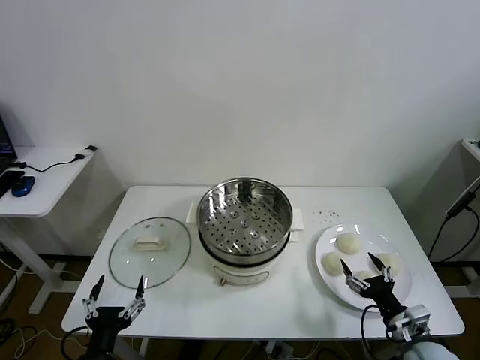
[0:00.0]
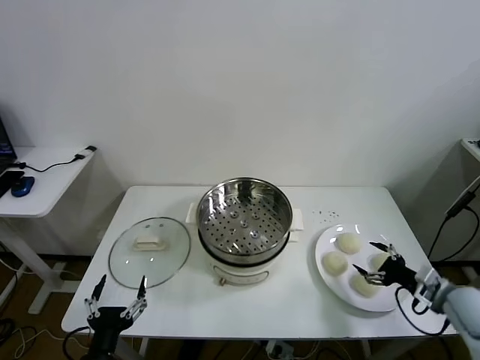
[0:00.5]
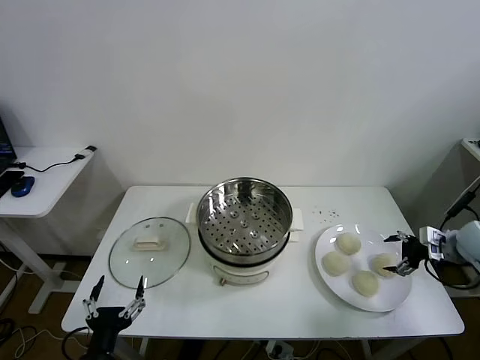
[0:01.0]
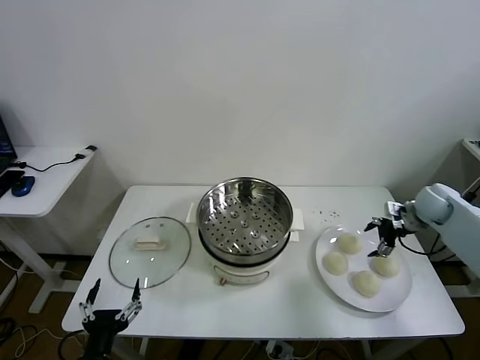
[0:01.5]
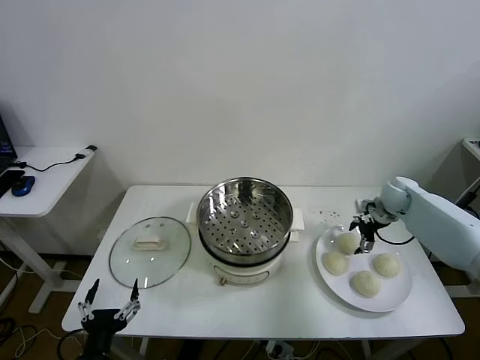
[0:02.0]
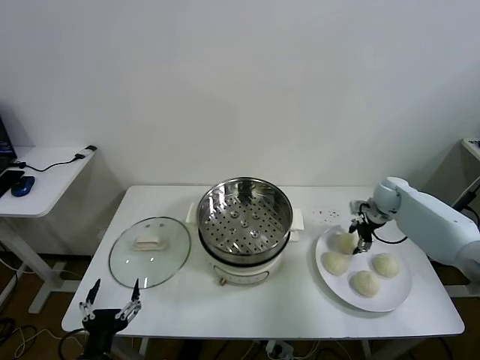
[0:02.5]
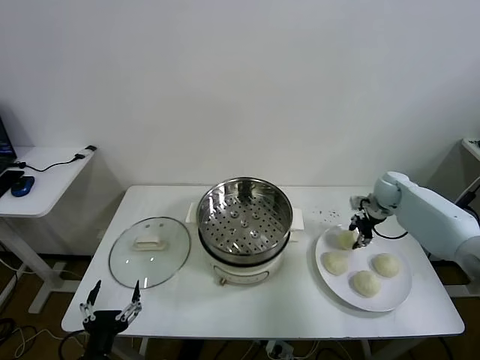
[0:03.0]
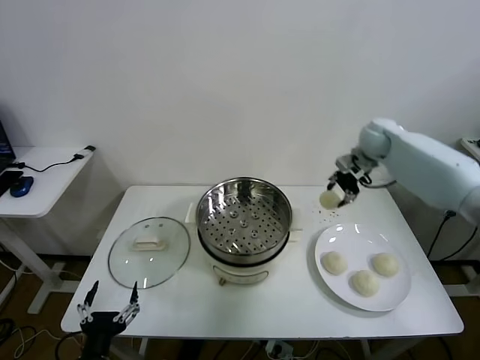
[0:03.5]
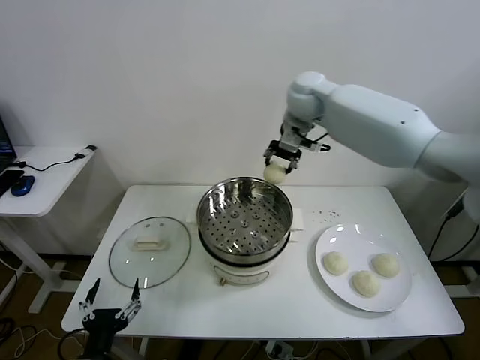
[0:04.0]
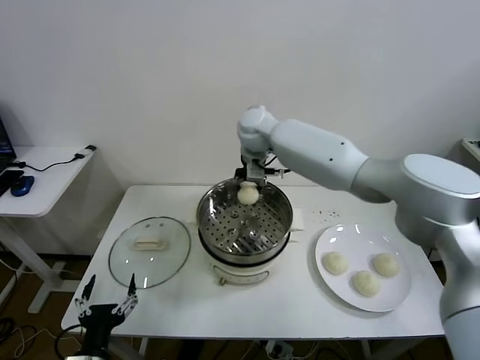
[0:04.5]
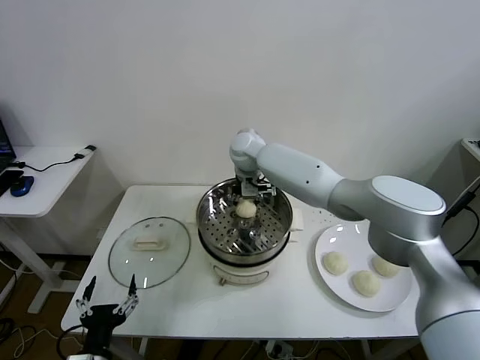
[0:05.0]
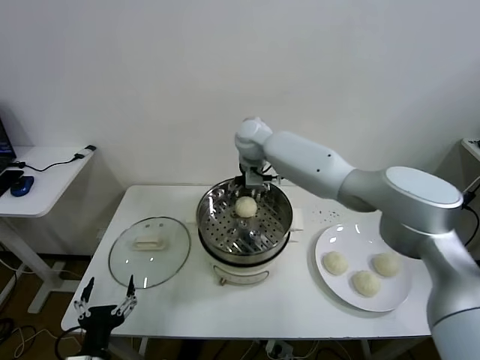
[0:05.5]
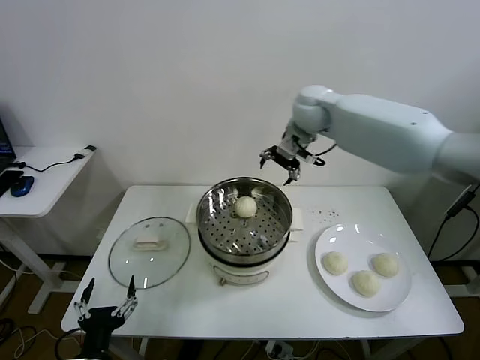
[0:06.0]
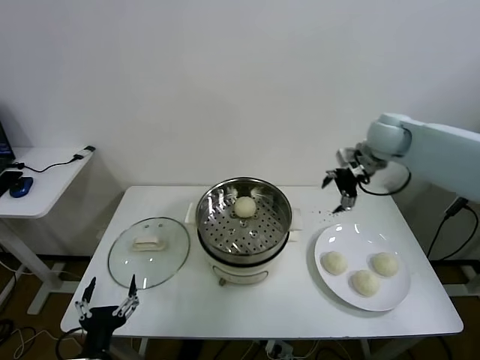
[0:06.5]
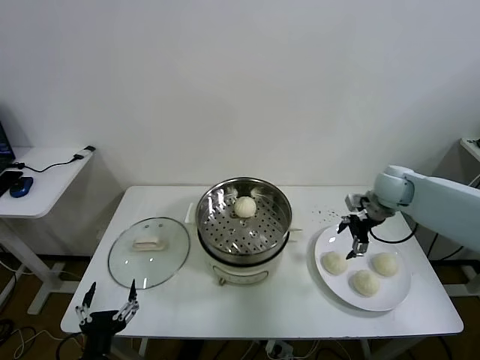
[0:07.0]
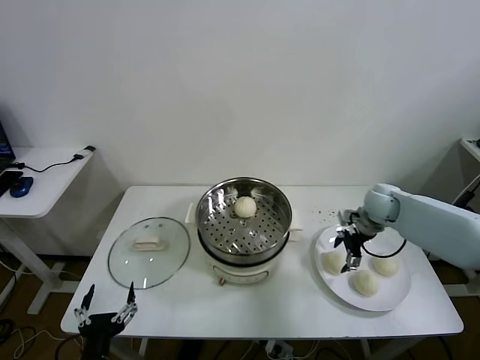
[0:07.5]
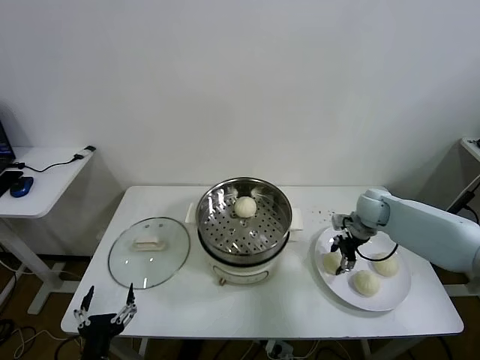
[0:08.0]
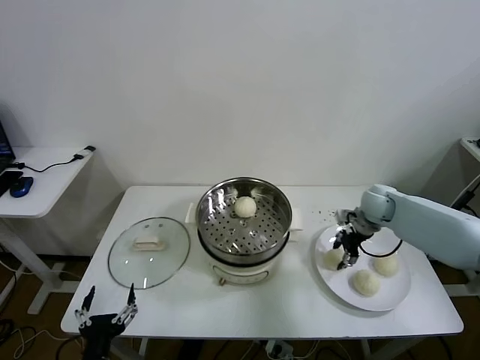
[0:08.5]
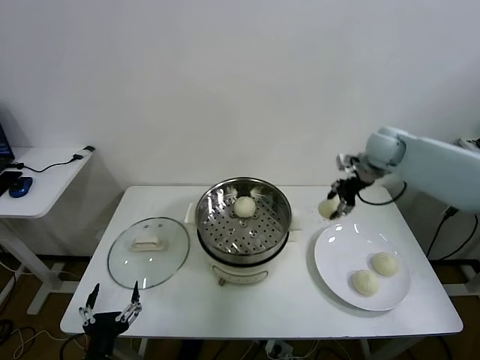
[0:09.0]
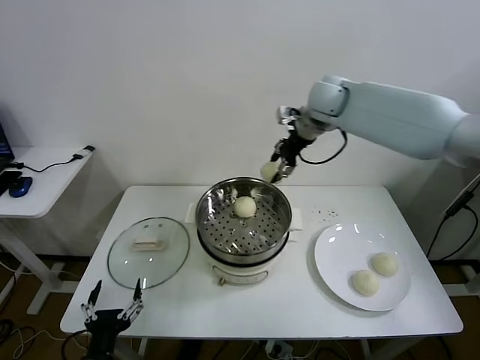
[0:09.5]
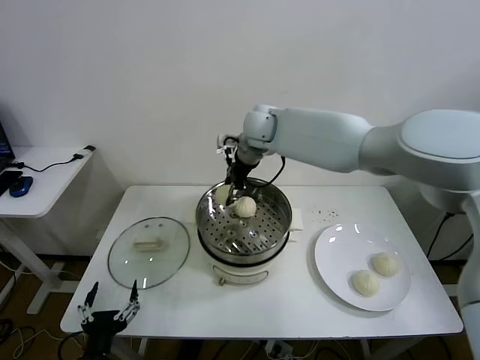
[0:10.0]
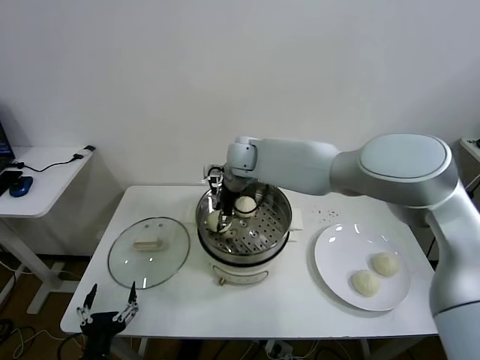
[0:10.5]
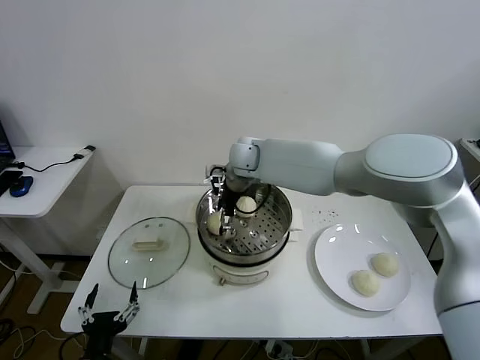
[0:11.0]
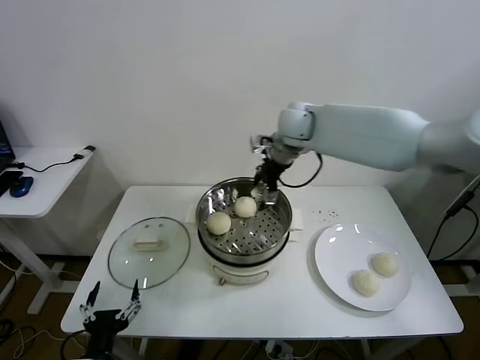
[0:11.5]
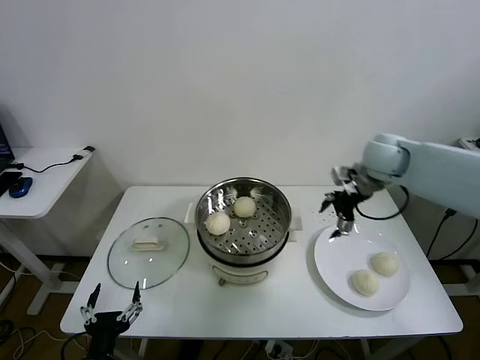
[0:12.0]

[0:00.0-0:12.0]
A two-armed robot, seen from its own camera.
Task of the whole recording: take steamed baozi put them in steamer then cover it.
Step, 0:00.0 to 0:02.5: Grasp the baozi in the plate with right gripper.
Step, 0:03.0 to 0:05.0: Place the baozi on the steamer with right gripper.
Step, 0:05.5 to 0:08.0: Grasp the baozi in the plate with right gripper.
Step, 0:08.5 to 0:10.5: Place the baozi on the steamer with right gripper.
0:02.0 to 0:04.0: The right gripper travels to the left and upward by approximately 40 cm, and closes up.
0:04.0 to 0:06.0: The right gripper heads to the right, covering approximately 10 cm, and opens.
0:06.0 to 0:08.0: The right gripper is displaced downward and to the right by approximately 30 cm, and closes.
0:08.0 to 0:10.0: The right gripper shifts some 35 cm to the left and upward.
0:10.0 to 0:12.0: The right gripper heads to the right, covering about 30 cm, and opens its fingers.

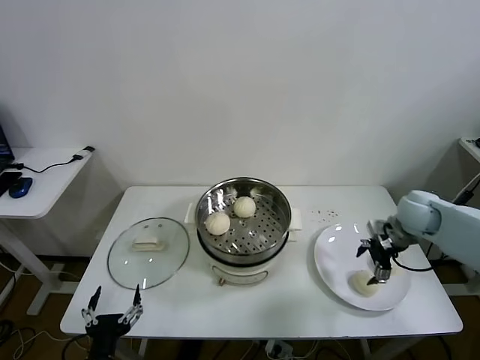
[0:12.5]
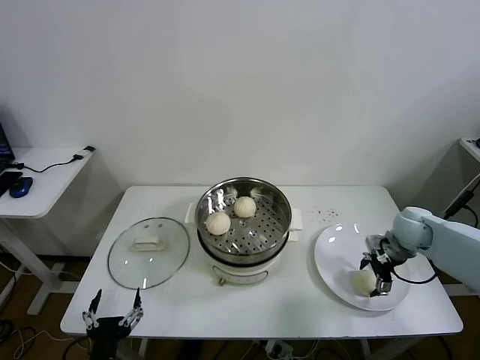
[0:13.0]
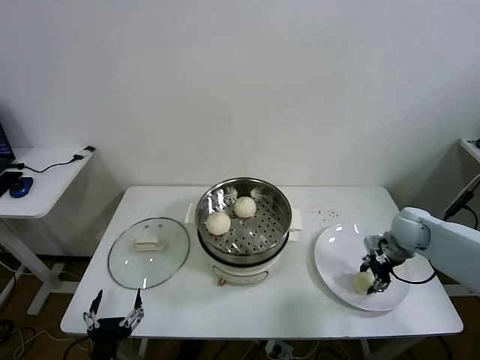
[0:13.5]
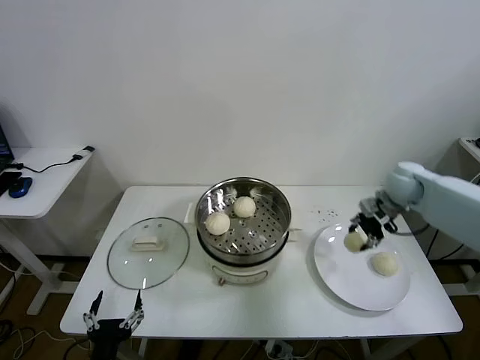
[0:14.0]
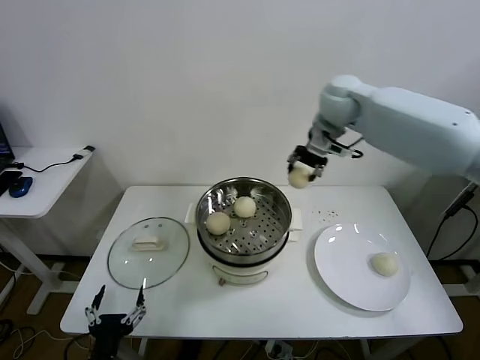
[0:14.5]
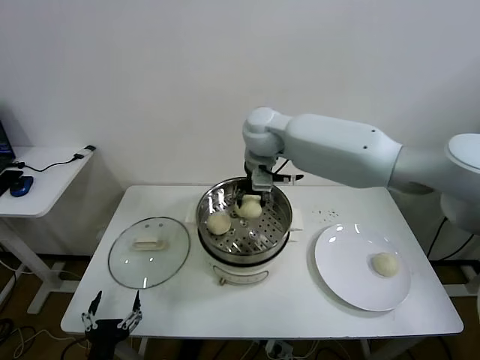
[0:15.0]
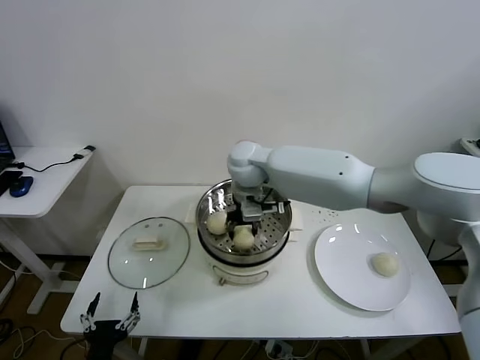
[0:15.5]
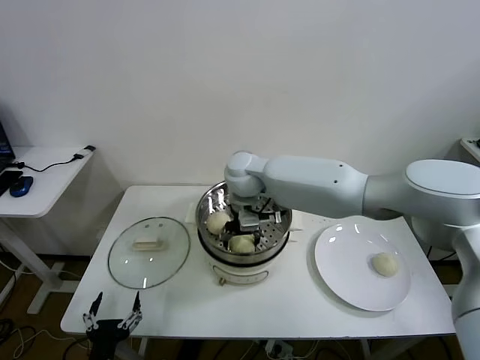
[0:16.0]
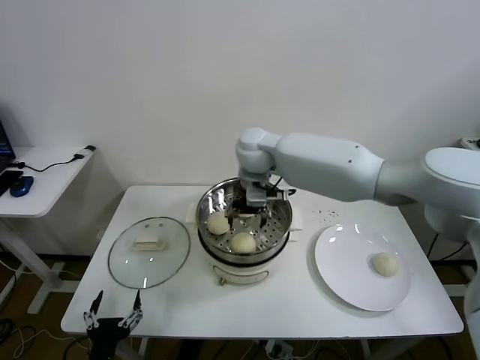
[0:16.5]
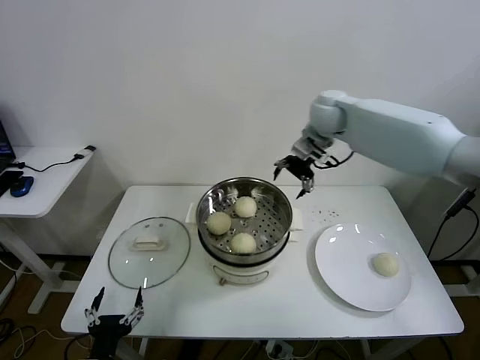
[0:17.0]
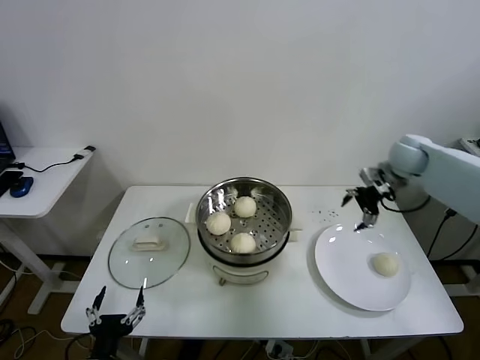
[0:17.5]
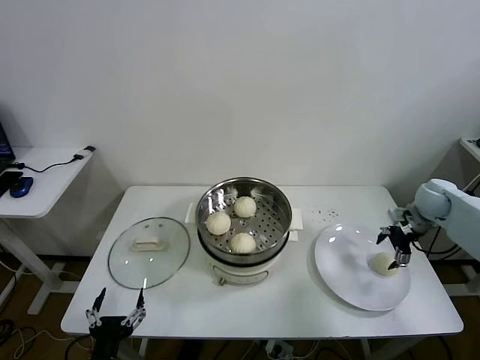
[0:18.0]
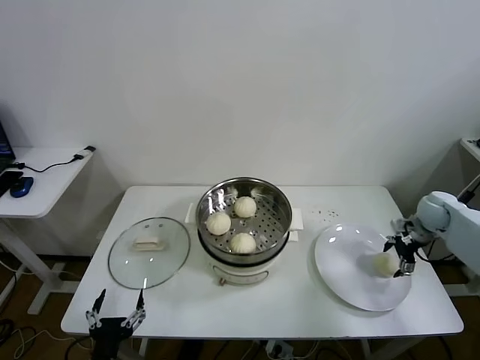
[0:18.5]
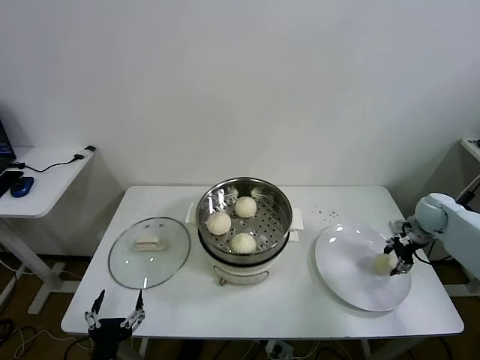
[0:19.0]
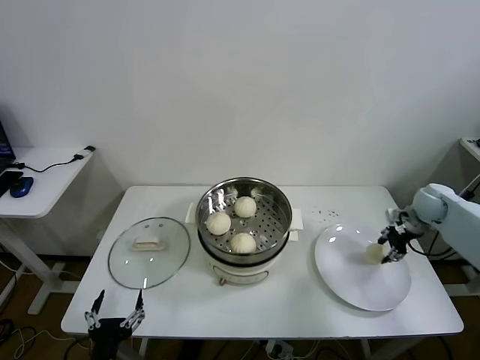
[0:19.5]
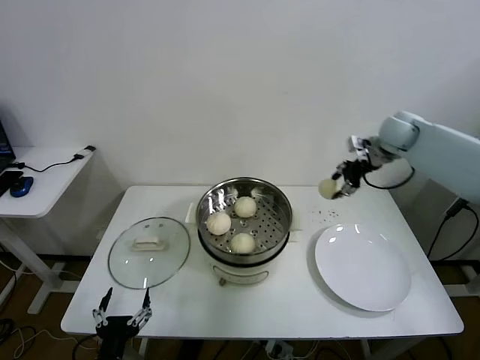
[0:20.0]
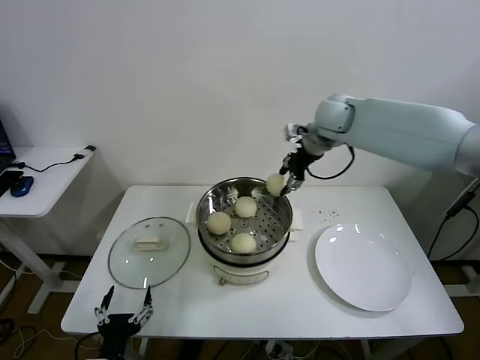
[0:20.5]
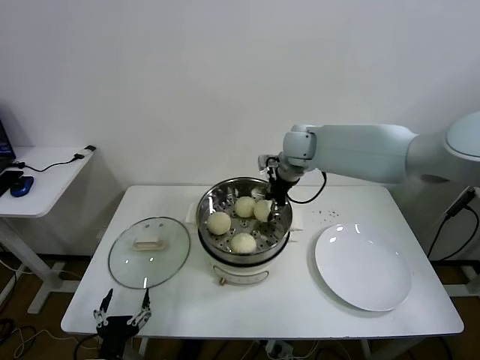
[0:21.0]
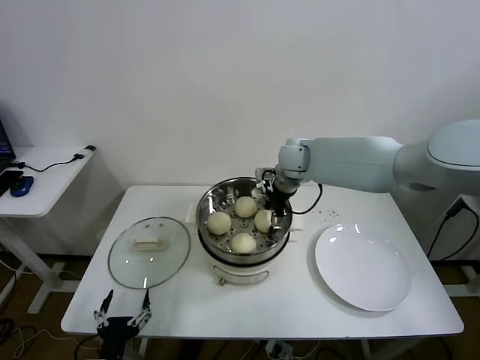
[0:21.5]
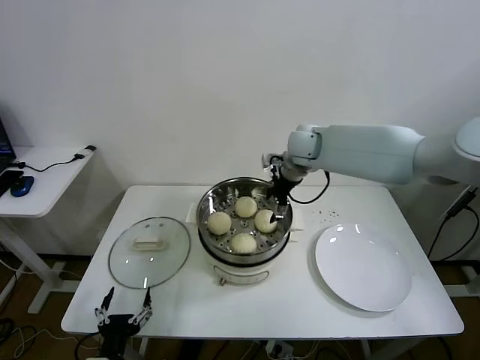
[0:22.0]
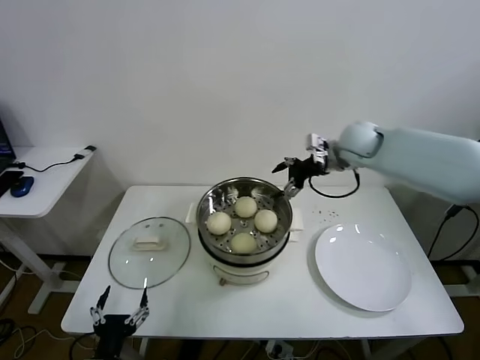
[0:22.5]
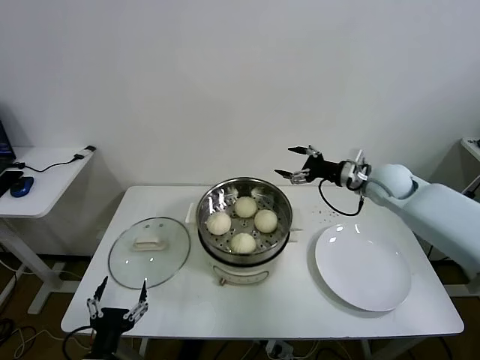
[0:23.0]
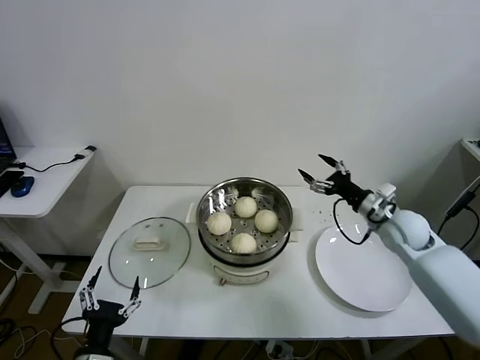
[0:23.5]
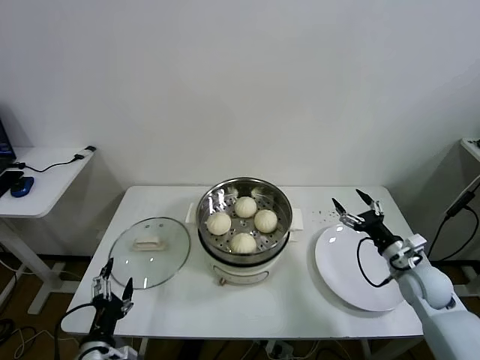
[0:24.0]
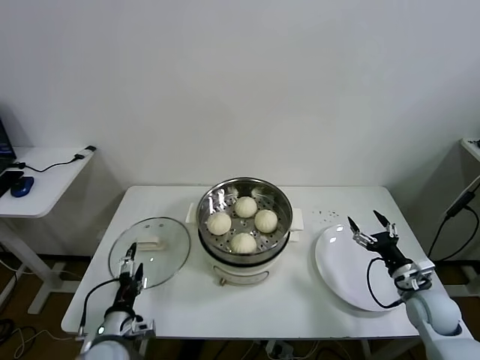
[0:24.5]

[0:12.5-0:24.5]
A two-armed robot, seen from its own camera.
Task of the whole recording: take steamed baozi put them in steamer then cover it.
Step, 0:13.5 to 0:16.0: Place the baozi on the steamer with right gripper.
Step, 0:16.5 to 0:19.0: Grasp the baozi in the plate with right gripper.
Step, 0:19.5 to 0:21.5: Place the baozi on the steamer with right gripper.
0:12.5 to 0:14.5: The right gripper moves upward, to the left and forward, some 35 cm, and closes.
0:14.5 to 0:16.5: The right gripper heads to the left and downward, covering about 15 cm, and opens.
0:16.5 to 0:18.5: The right gripper goes about 50 cm to the right.
0:18.5 to 0:20.5: The right gripper moves to the left and upward, about 35 cm, and closes its fingers.
0:20.5 to 0:22.5: The right gripper is displaced to the right and downward by approximately 5 cm, and opens.
0:22.5 to 0:24.5: The right gripper shifts roughly 40 cm downward, backward and to the right, while the left gripper is displaced forward by approximately 10 cm.

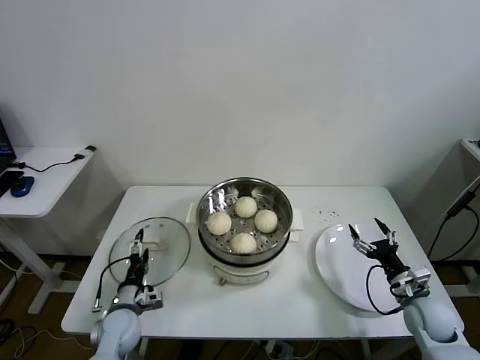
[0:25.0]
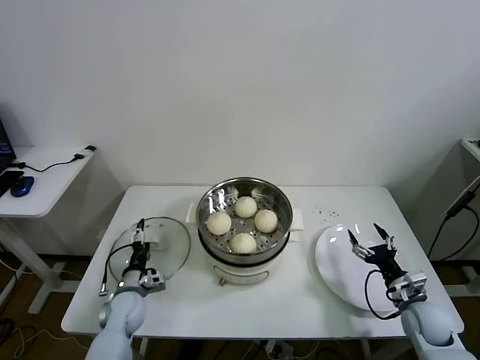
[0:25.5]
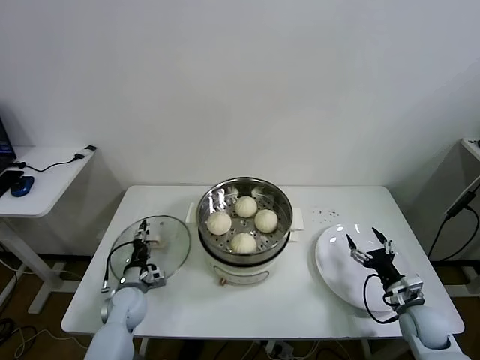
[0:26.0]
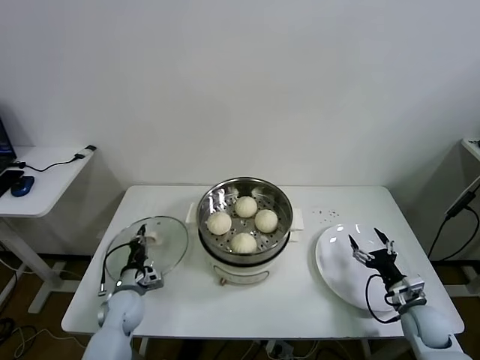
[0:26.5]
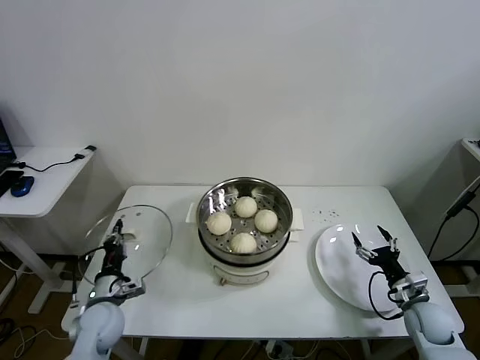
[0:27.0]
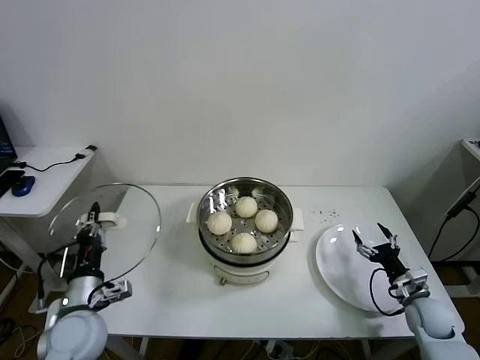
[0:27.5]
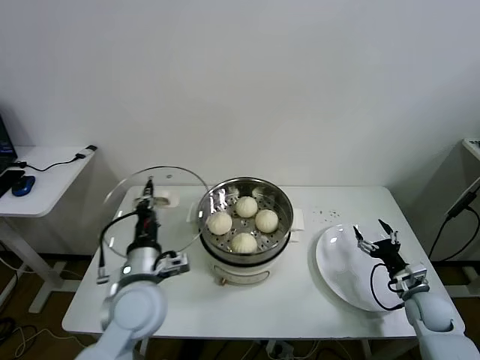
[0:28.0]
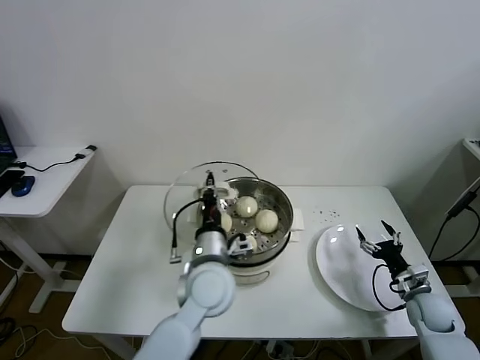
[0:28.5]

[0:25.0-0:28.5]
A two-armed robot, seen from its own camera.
Task of the whole recording: take steamed baozi put them in steamer then cover it.
0:25.0 to 0:27.0: The left gripper closes.
0:27.0 to 0:28.5: The left gripper shifts roughly 30 cm to the right and upward.
